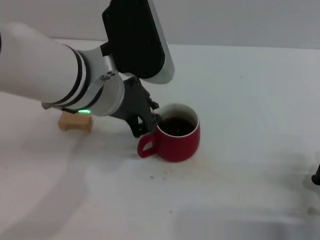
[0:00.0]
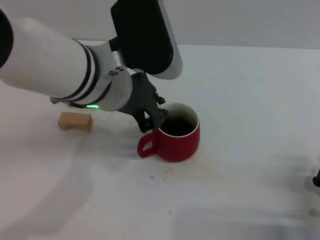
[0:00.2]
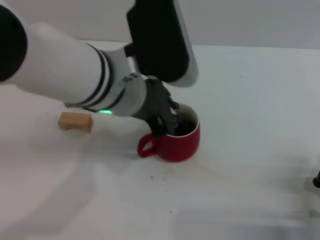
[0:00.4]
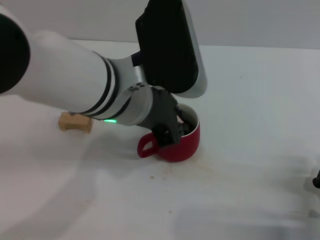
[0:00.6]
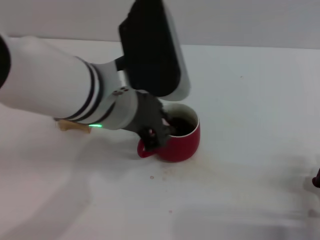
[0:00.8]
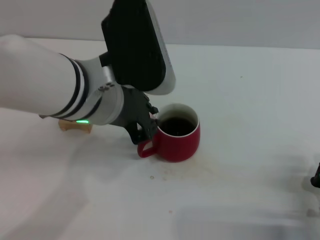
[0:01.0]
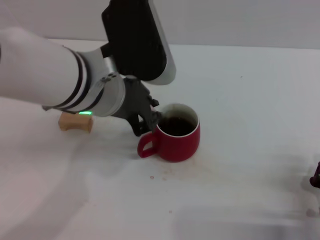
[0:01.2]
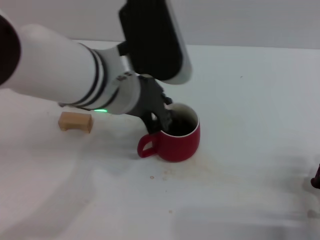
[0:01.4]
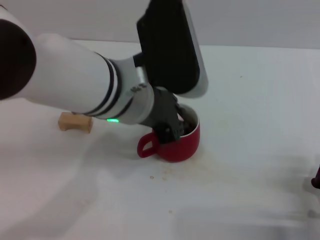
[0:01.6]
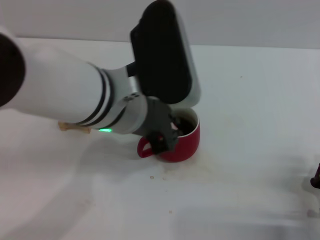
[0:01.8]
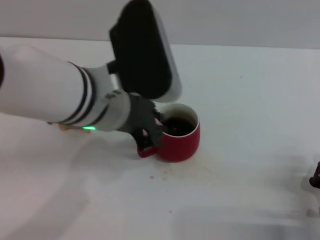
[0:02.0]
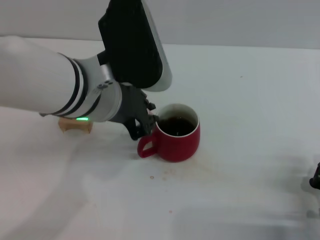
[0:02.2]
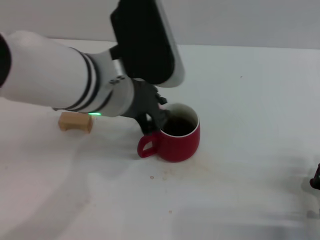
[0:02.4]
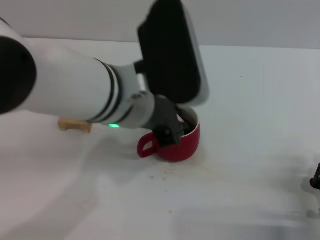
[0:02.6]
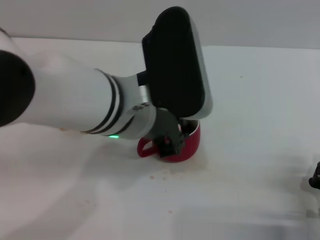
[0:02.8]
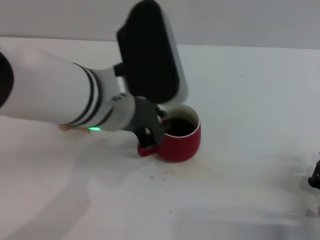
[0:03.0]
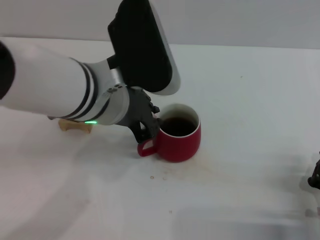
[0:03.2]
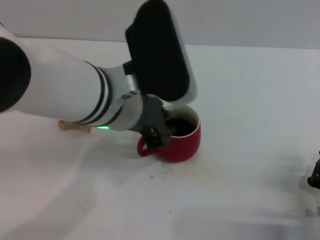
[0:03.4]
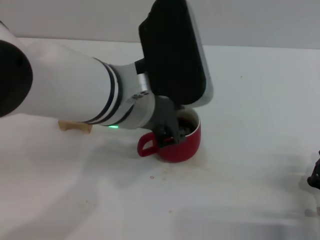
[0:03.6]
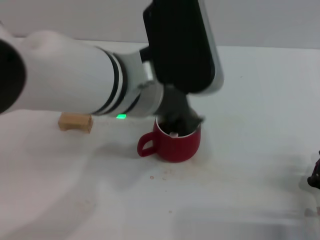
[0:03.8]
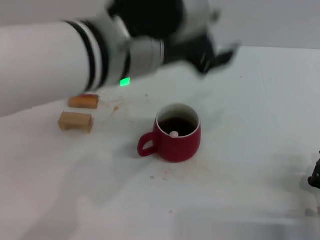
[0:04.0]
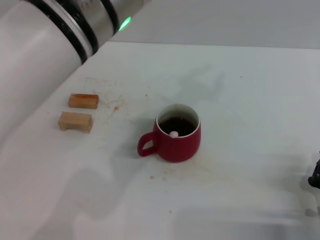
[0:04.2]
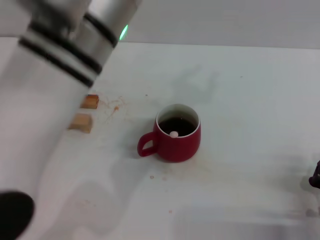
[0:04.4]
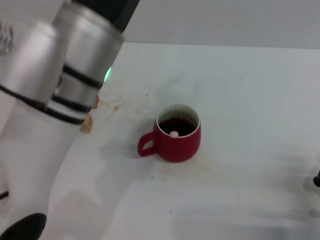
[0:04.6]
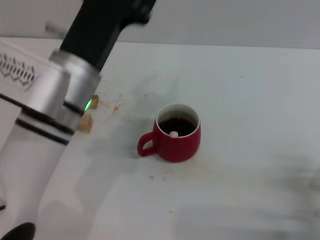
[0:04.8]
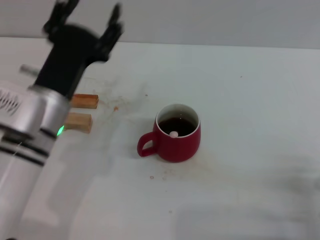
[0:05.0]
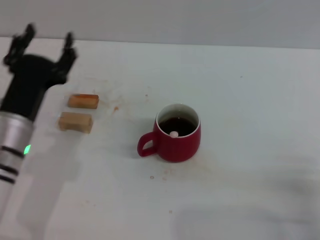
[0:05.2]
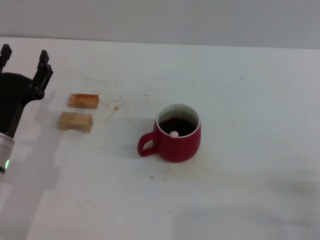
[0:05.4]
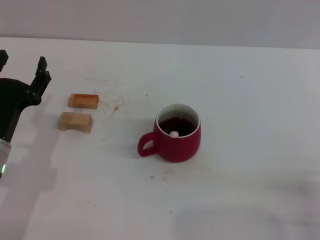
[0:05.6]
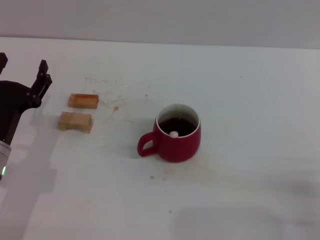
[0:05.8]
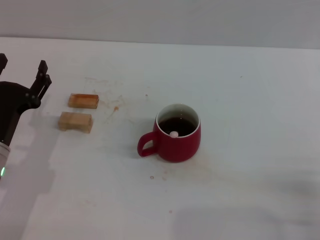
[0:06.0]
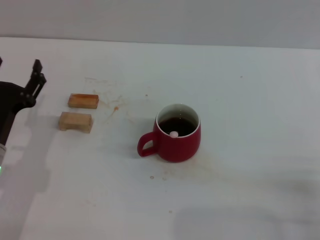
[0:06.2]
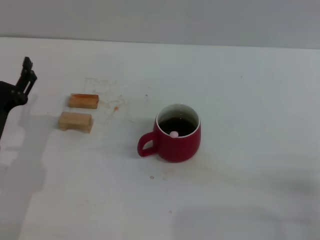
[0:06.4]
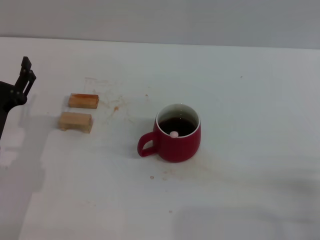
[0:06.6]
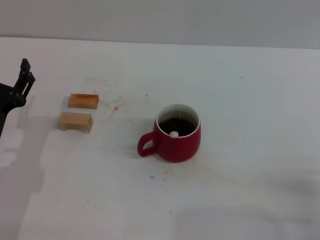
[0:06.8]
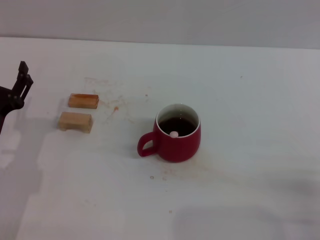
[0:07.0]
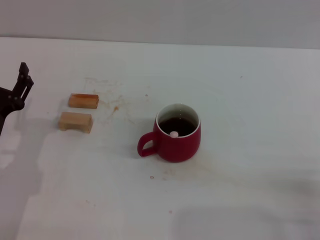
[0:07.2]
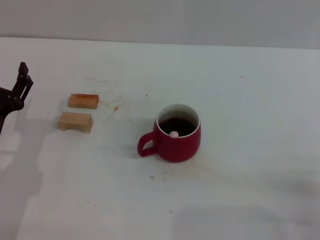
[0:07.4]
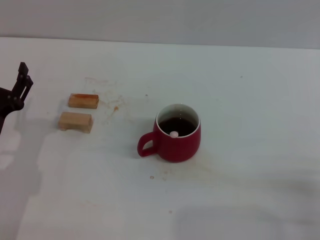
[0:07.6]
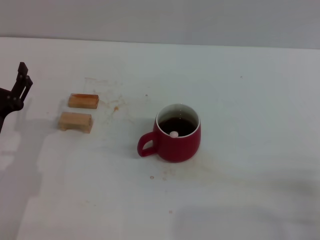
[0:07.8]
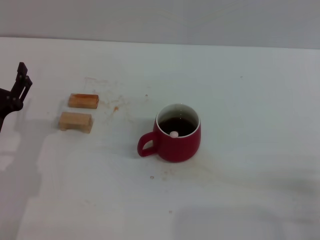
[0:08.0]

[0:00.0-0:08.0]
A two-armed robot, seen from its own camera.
Task of the whole recording: Move the red cup to the center, lift the pink spoon, stir it three times in the cup, and put the spoon into the cup.
Step, 0:00.0 to 0:03.8: Stir the coffee in the cup with the left gripper.
0:00.0 to 0:03.2: There are only small adjustments of the grippers.
0:03.2 to 0:04.8: The left gripper moves roughly 5 cm.
0:04.8 to 0:06.4: The left gripper goes roughly 20 cm to the left and downward, and opens its fingers.
0:06.4 to 0:08.0: Neither gripper changes place.

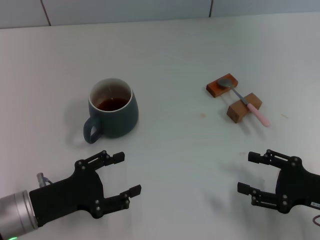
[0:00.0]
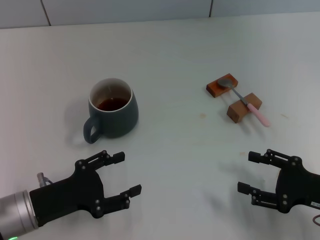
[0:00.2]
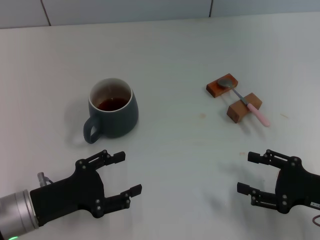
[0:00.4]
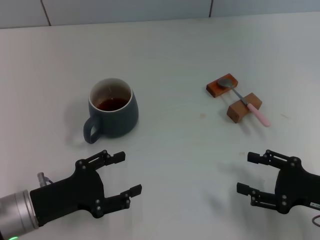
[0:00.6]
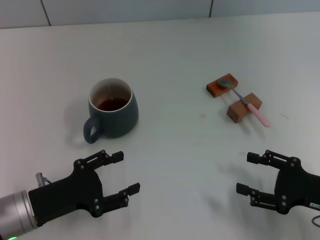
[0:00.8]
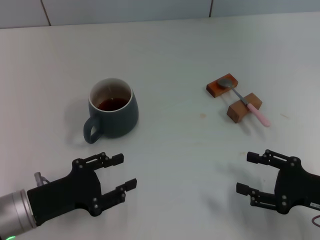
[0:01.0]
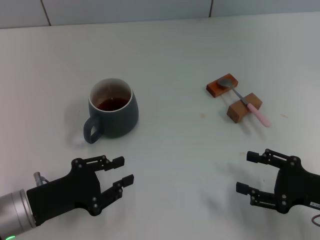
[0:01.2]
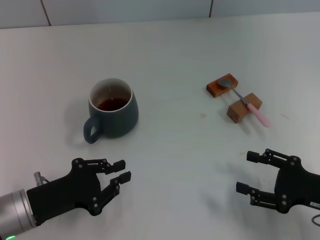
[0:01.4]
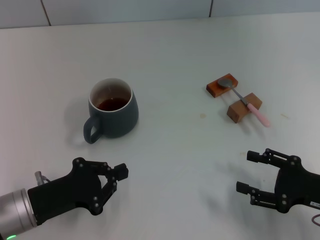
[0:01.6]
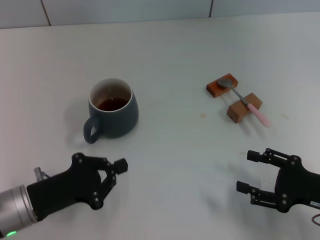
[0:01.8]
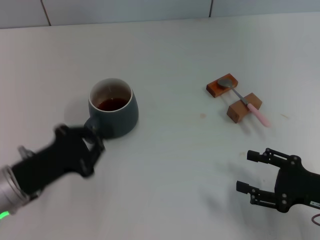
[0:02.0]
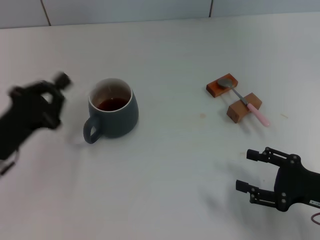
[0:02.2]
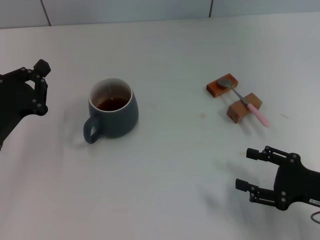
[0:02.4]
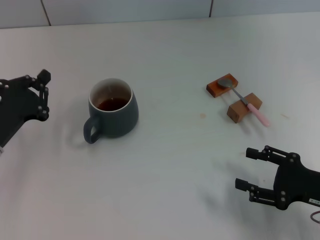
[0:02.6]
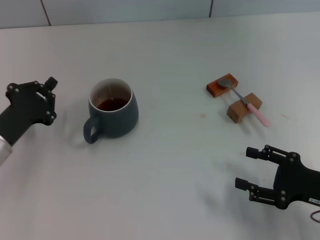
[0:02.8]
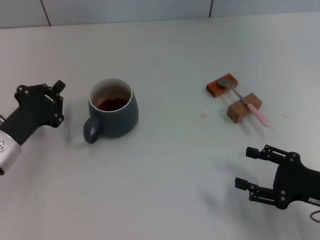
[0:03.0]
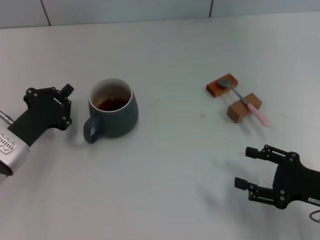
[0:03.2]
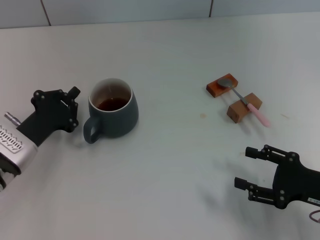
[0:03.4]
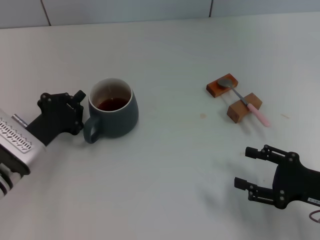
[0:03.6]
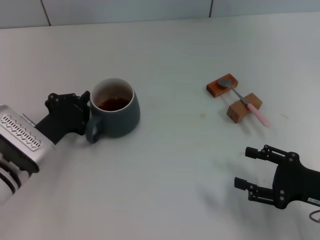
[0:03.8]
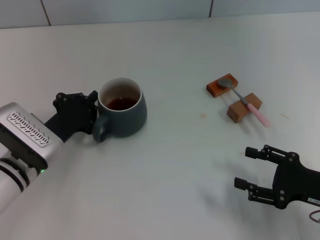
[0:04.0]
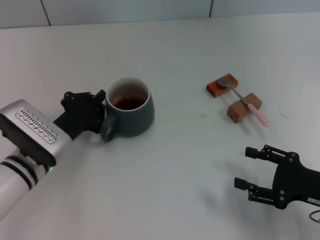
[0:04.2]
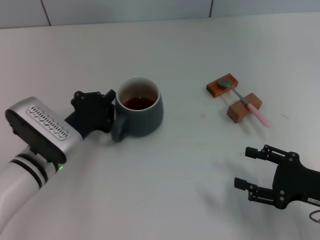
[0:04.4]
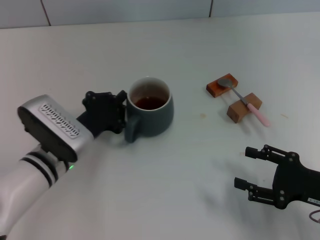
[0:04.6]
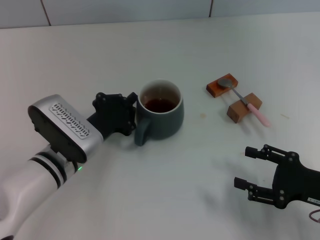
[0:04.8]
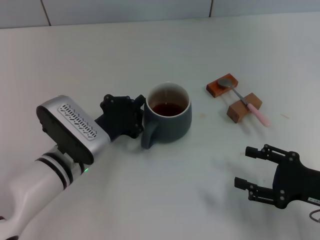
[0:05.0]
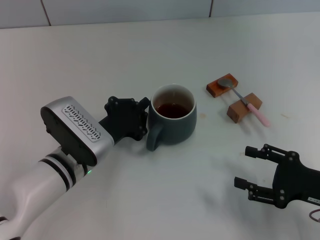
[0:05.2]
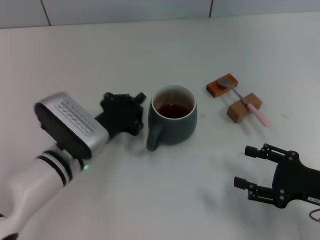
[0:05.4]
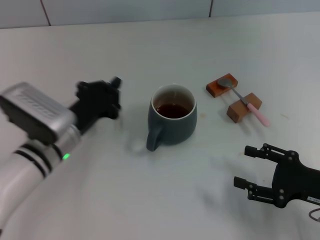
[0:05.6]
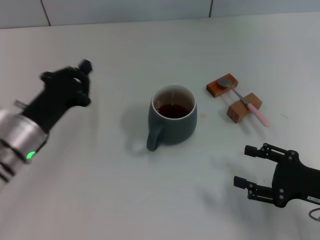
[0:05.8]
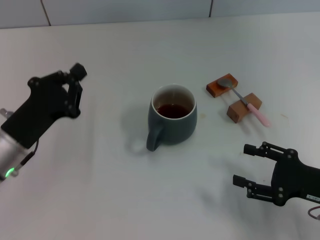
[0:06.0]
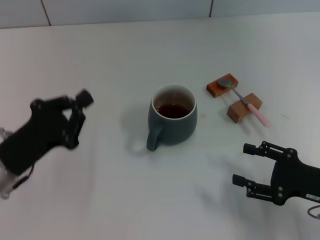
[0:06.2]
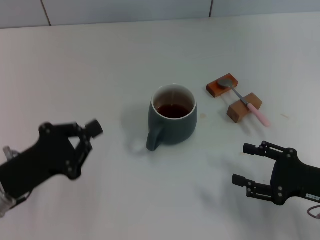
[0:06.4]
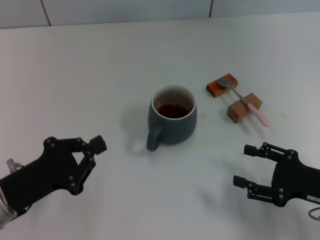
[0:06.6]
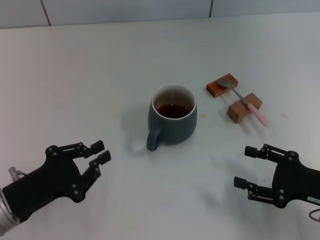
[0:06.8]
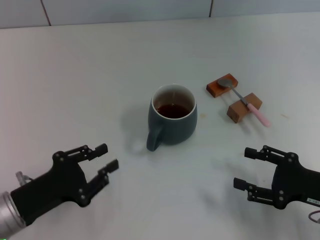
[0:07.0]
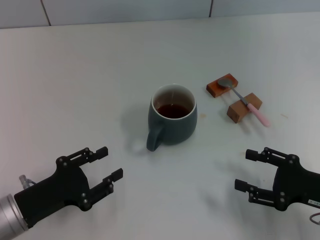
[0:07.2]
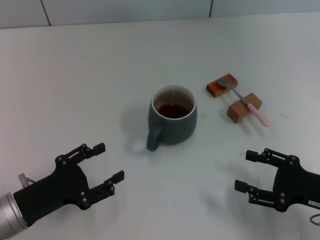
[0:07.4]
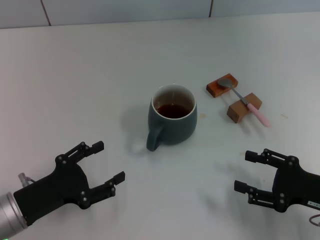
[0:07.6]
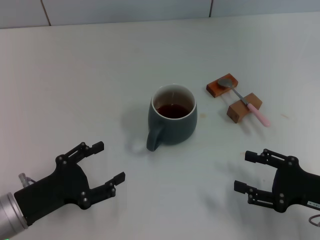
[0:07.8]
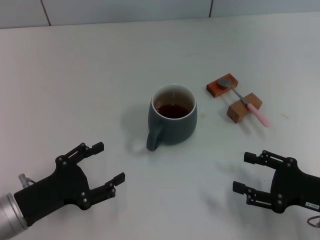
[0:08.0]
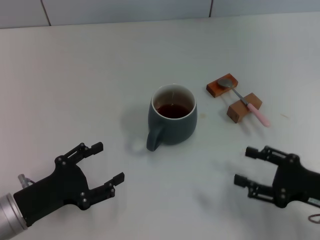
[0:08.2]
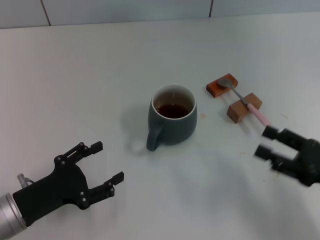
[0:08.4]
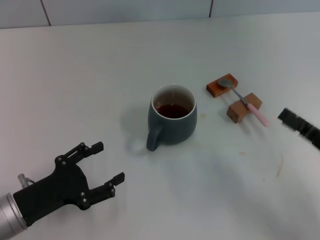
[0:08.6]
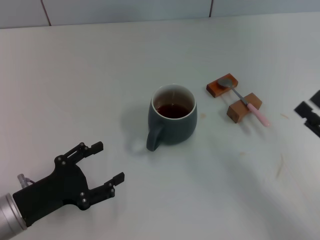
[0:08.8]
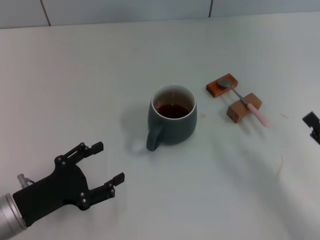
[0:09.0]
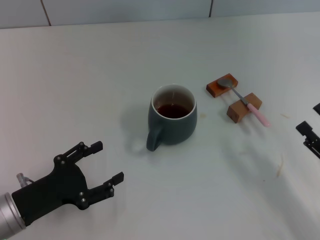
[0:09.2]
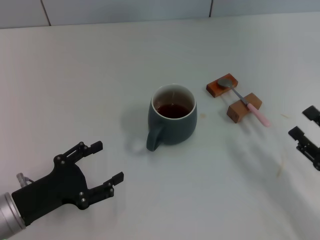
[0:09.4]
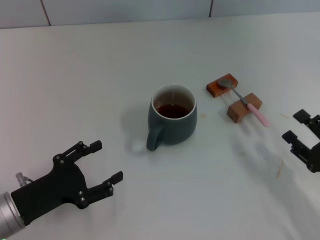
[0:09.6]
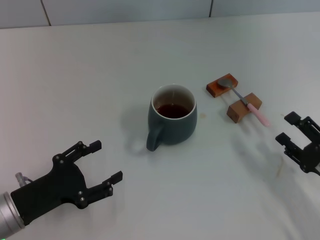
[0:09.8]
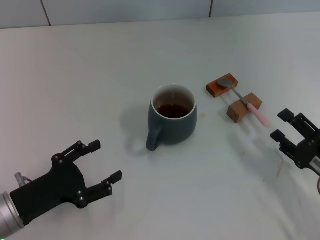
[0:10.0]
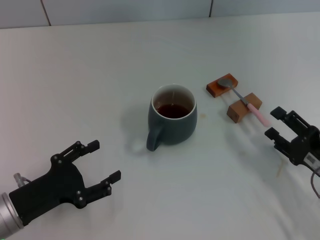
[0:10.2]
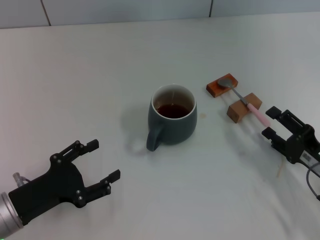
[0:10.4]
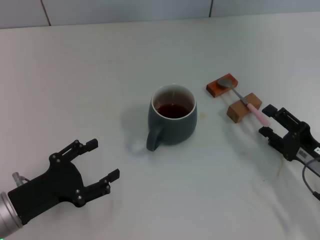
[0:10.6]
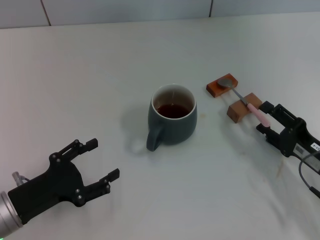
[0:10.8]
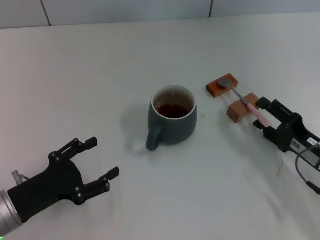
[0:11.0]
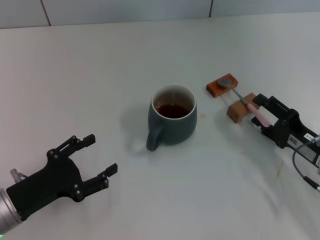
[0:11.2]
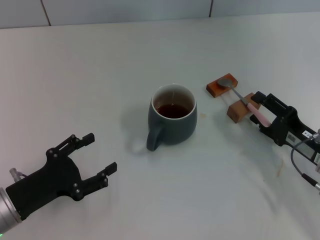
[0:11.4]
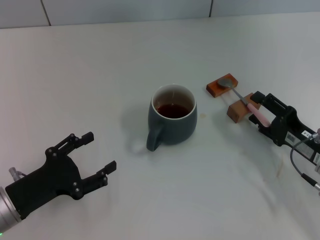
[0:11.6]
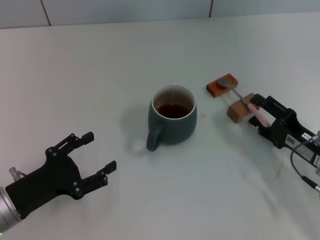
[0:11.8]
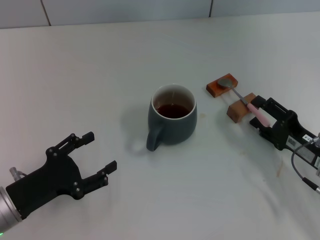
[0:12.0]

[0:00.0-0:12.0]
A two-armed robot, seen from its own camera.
Task of the whole recording: Move the grey cup to the center, lift the pink spoon, stir it three times in the cup, and put the spoon into the cup.
Step, 0:00.0 to 0:05.4: Move the cup with coffee to the center of view with the left gripper.
0:00.0 to 0:01.6: The left gripper closes its fingers.
0:01.6 to 0:03.0: The left gripper moves forward, approximately 5 cm.
0:03.0 to 0:04.4: The left gripper heads to the right, covering approximately 10 cm.
0:04.4 to 0:06.0: The left gripper is displaced to the left by approximately 5 cm.
0:06.0 to 0:07.6: The left gripper is displaced backward by some 5 cm, and opens up.
0:09.0 to 0:10.4: The right gripper changes place by approximately 5 cm.
0:10.4 to 0:12.0: The grippers make only small movements.

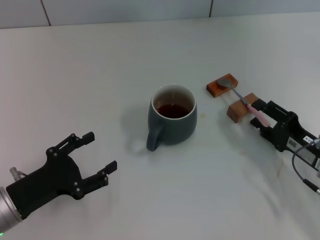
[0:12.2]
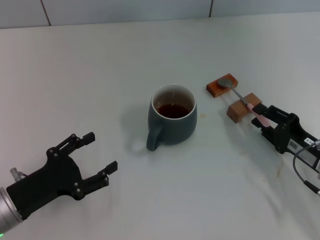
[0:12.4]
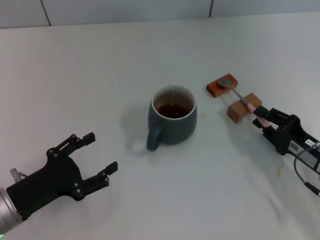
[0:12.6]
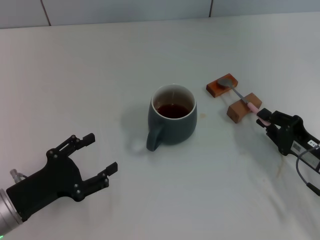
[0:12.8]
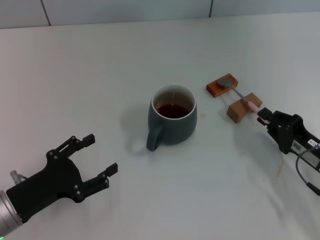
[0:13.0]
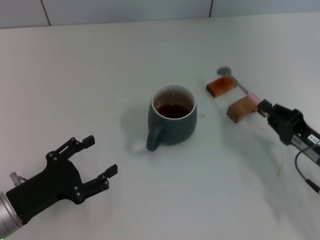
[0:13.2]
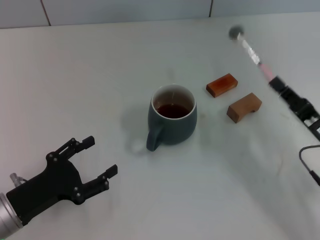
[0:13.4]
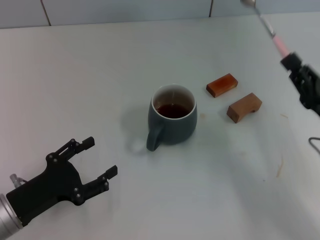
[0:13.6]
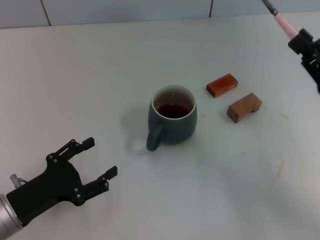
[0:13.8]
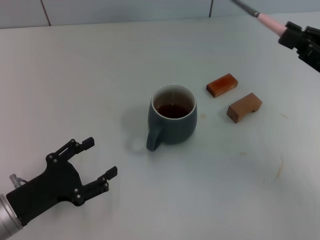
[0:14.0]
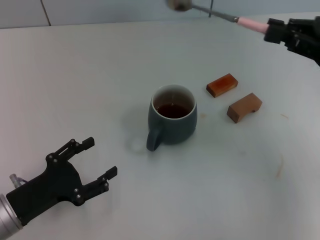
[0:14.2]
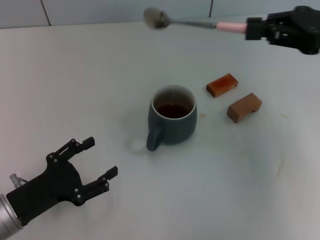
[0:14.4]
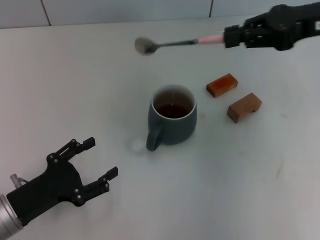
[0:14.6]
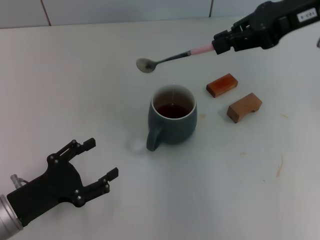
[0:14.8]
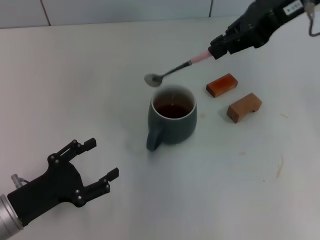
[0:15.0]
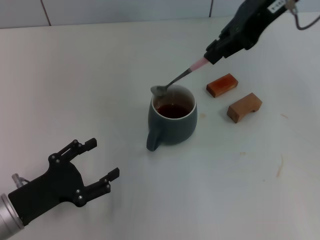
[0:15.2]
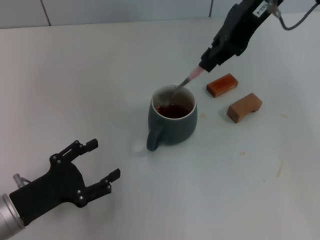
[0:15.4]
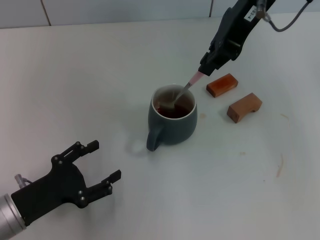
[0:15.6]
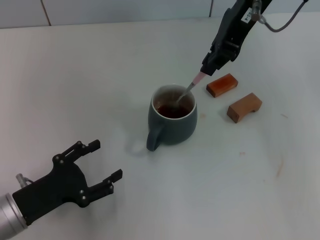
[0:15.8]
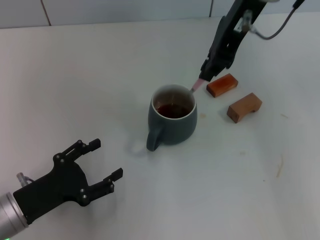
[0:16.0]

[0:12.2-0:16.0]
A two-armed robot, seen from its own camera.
Task of the whole recording: Move the grey cup to the center, lift the pink spoon, stir it three times in the cup, and put the spoon into the cup.
0:12.2 to 0:13.4: The right gripper closes.
0:13.4 to 0:14.8: The right gripper goes roughly 30 cm upward and forward.
0:14.8 to 0:16.0: The right gripper travels to the left by about 10 cm.
